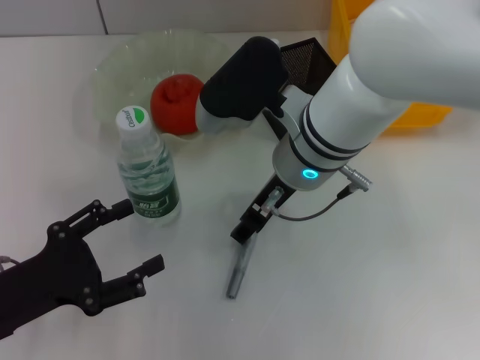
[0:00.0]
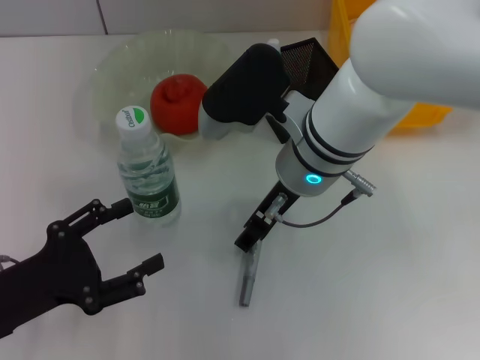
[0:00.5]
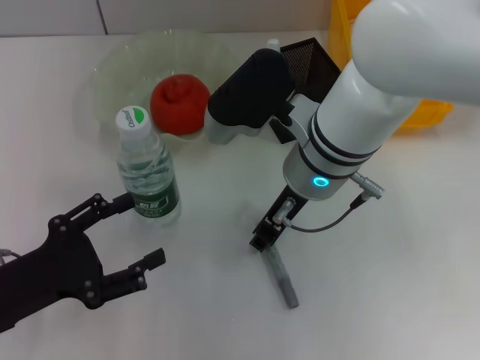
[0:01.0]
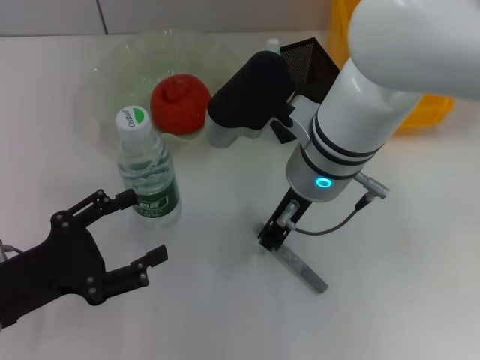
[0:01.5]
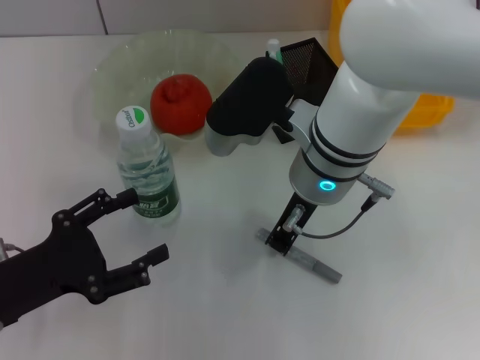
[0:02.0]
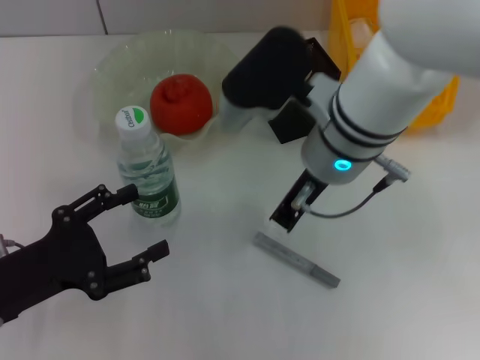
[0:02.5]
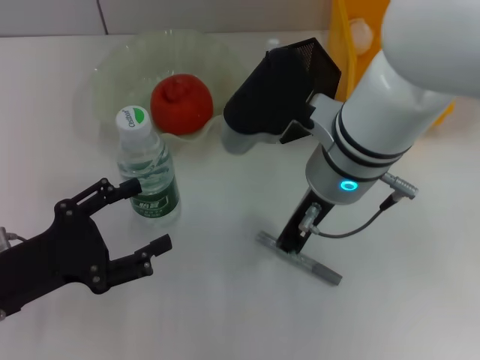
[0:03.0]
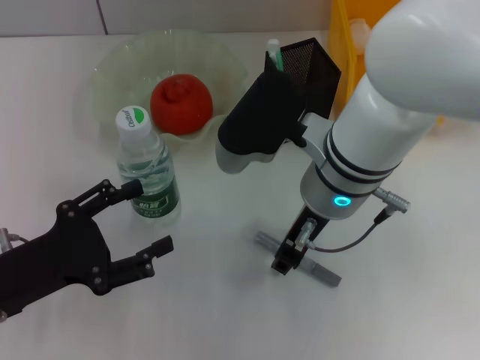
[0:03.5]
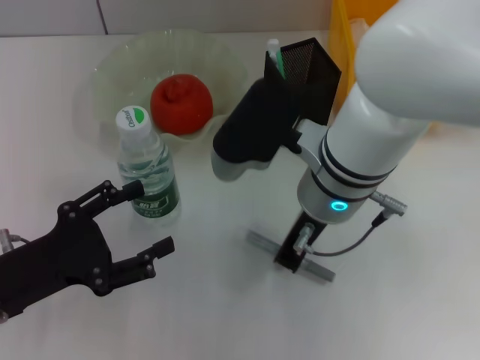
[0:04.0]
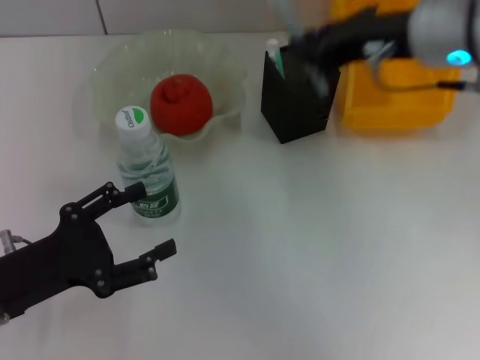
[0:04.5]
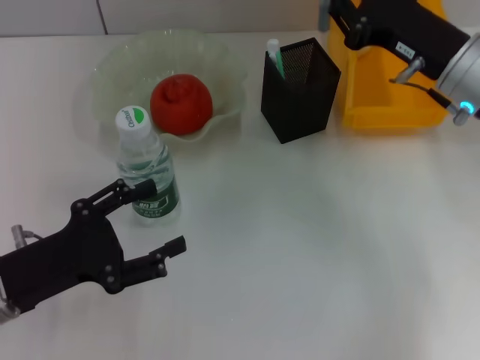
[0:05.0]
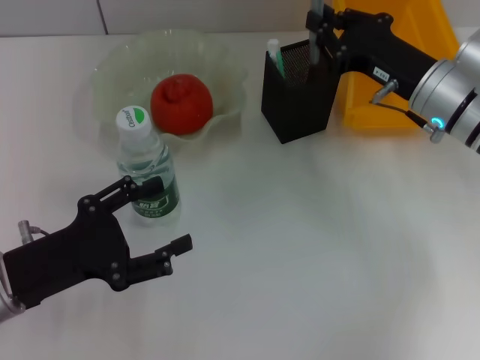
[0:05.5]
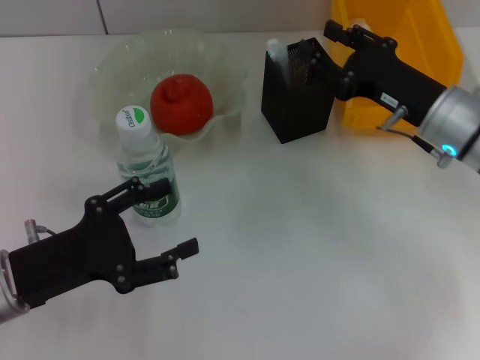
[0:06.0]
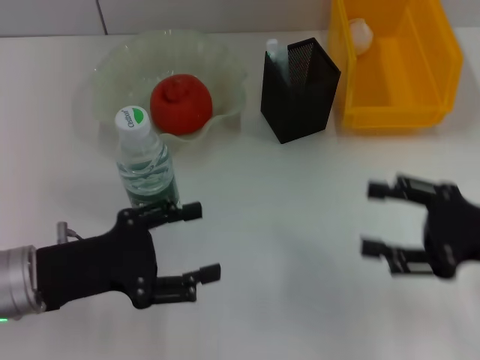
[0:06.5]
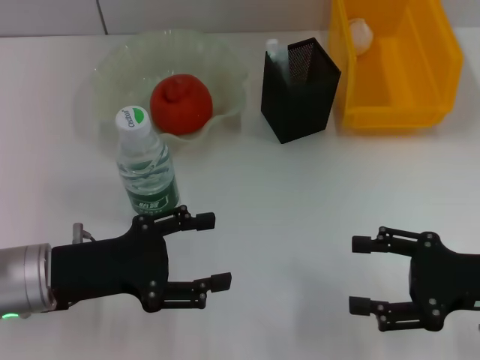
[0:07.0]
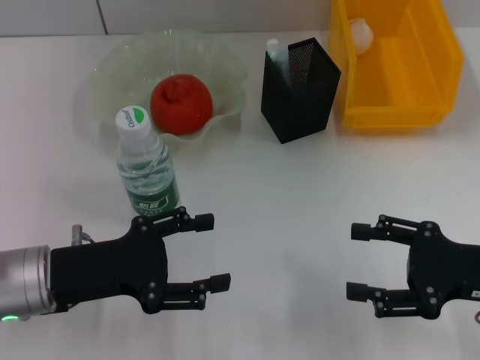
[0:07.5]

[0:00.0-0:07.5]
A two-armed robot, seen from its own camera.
Step, 0:00.0 to 0:03.5: Grab the gray glue with the right hand.
Step, 0:04.0 to 0:06.0: Place the gray glue into the pen holder with the right hand.
0:00.0 to 0:02.0: The right gripper closes.
0:02.0 to 0:04.0: The grippers make only small movements.
0:04.0 to 0:05.5: The right gripper heads to the right and forward, covering about 15 cm.
0:05.5 to 0:07.5: The right gripper goes approximately 15 cm backward and to the right, and opens.

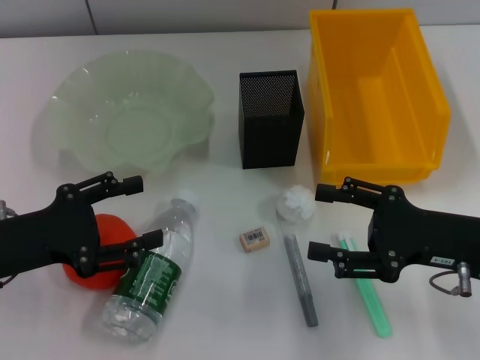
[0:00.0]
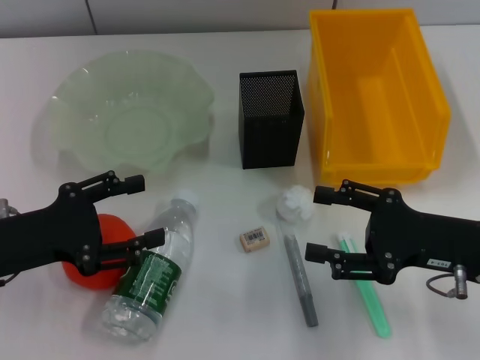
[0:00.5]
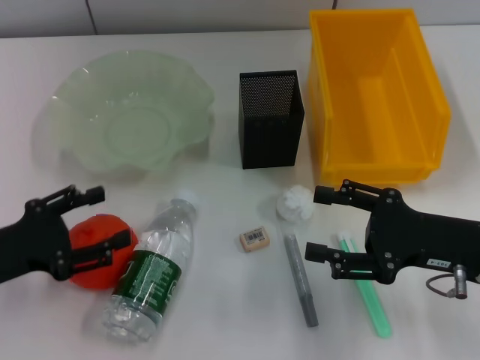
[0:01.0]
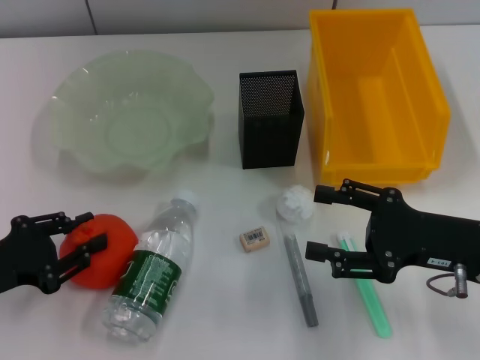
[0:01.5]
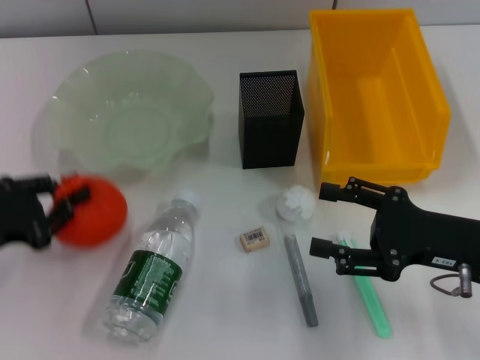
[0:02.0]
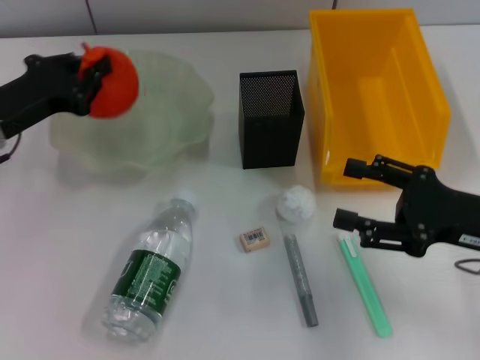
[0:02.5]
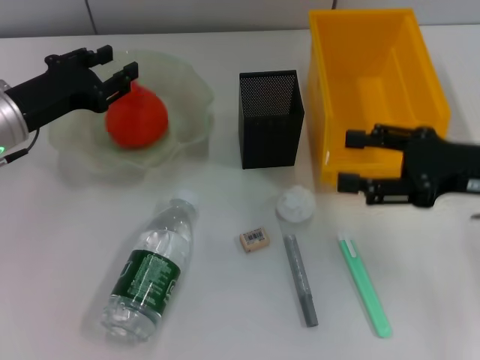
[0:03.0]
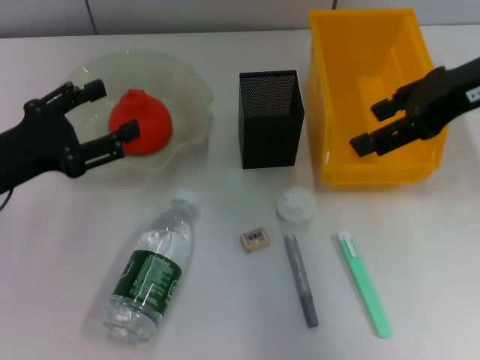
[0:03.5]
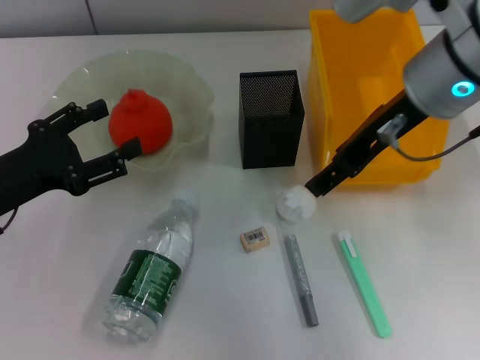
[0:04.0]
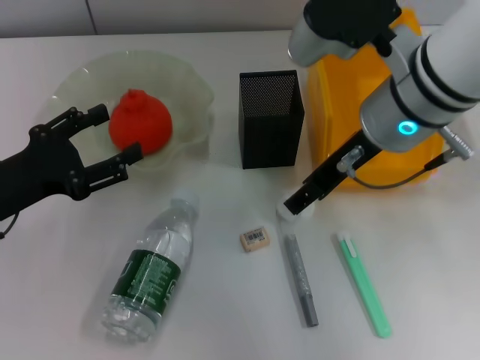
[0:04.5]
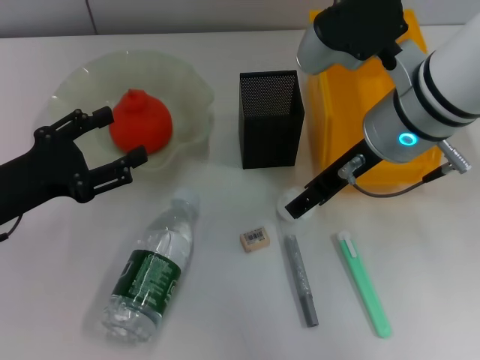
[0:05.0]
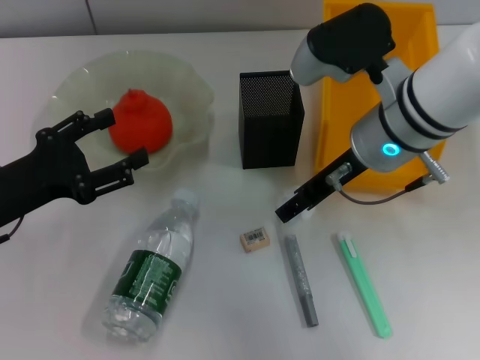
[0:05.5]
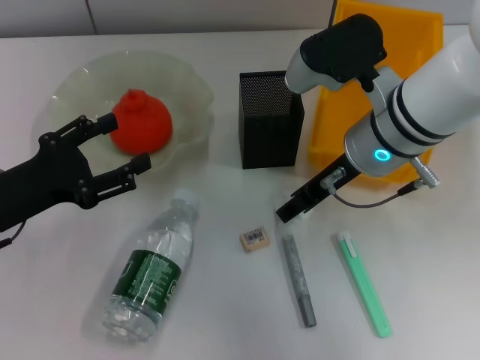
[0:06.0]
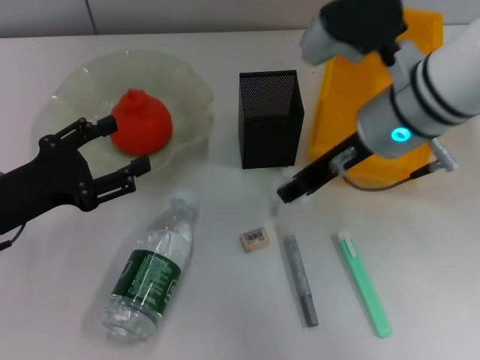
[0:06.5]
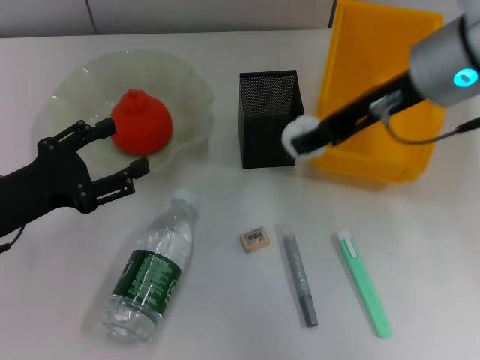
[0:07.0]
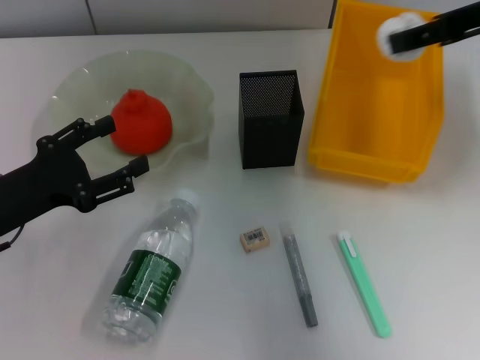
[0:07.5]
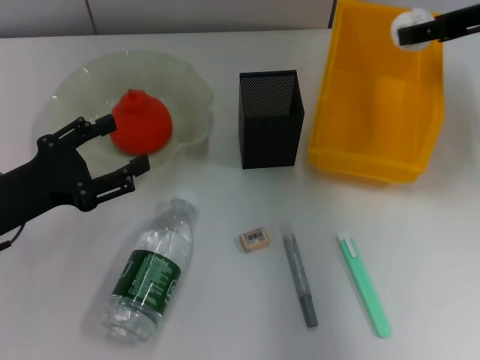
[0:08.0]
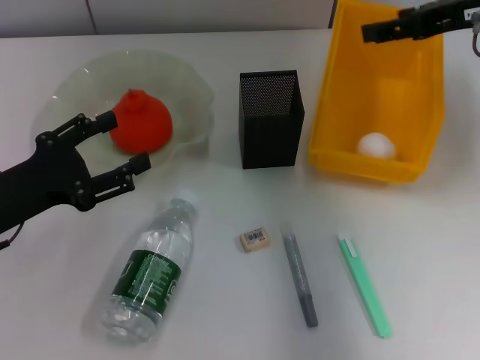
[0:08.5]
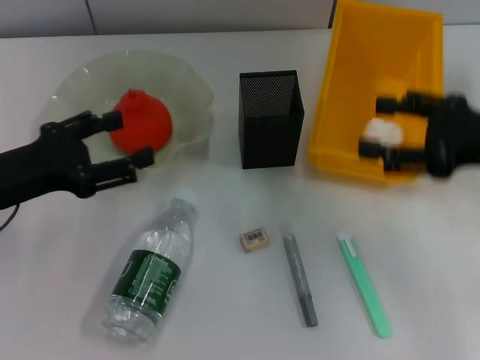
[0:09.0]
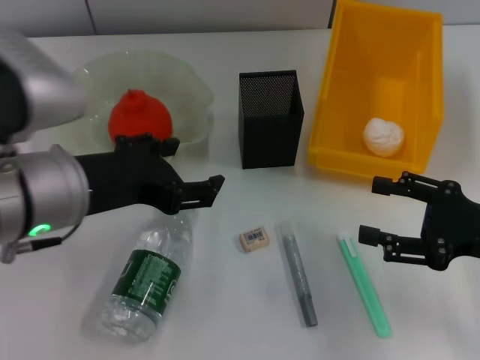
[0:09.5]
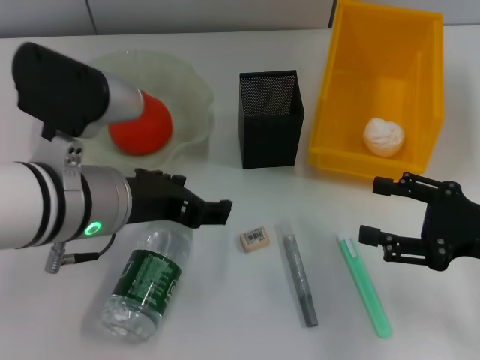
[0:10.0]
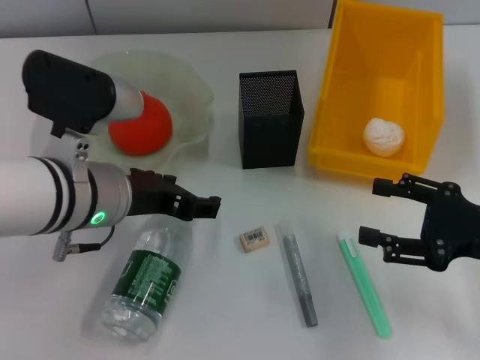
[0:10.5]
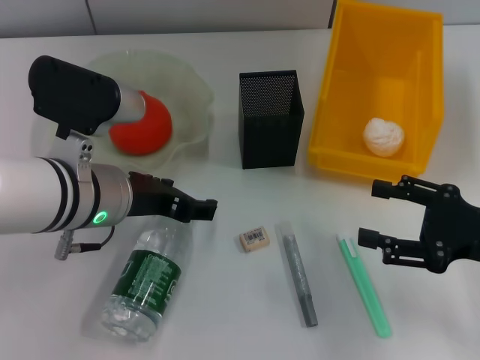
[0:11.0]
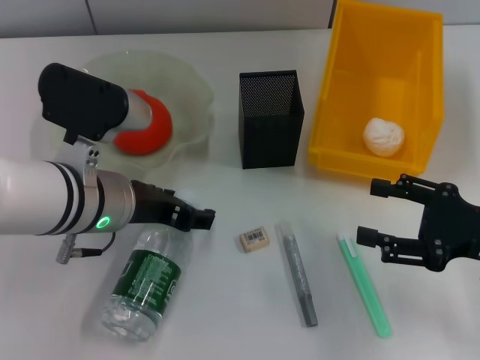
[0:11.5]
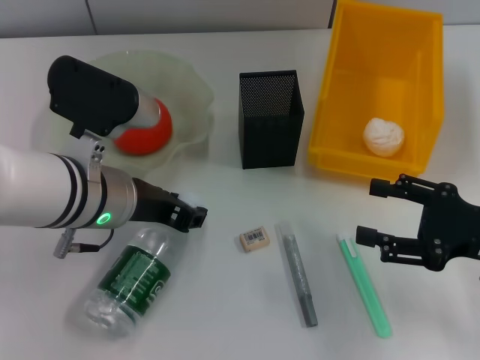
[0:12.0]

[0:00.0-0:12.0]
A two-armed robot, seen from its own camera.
Step, 0:00.0 to 0:01.5: Grab the orange with the left hand.
Step, 0:02.0 to 0:03.0: Place the orange into the fruit bowl with the left hand.
Step, 0:03.5 to 0:06.0: Grab the paper ball with the right hand.
Step, 0:06.5 to 0:08.0: Place the paper ball into the trash can with the right hand.
Step, 0:08.5 to 0:11.5: Grab the water bottle with the left hand.
0:00.0 to 0:02.0: The left gripper closes its fingers.
0:02.0 to 0:04.0: The right gripper travels upward, to the left and forward by some 20 cm. Meanwhile the left gripper moves about 15 cm forward and comes back, and opens up.
0:04.0 to 0:06.0: The right gripper moves downward, about 10 cm.
0:06.0 to 0:08.0: The right gripper is displaced to the right and upward by about 20 cm.
0:08.0 to 0:10.0: The right gripper shifts about 20 cm backward and downward, and opens up. The left gripper goes roughly 15 cm to the right and upward.
0:10.0 to 0:12.0: The left gripper closes up.

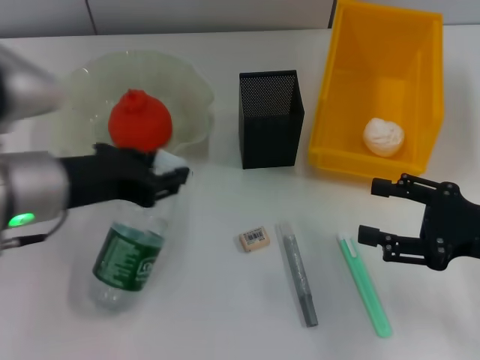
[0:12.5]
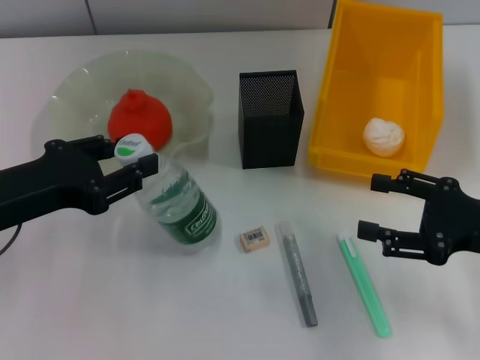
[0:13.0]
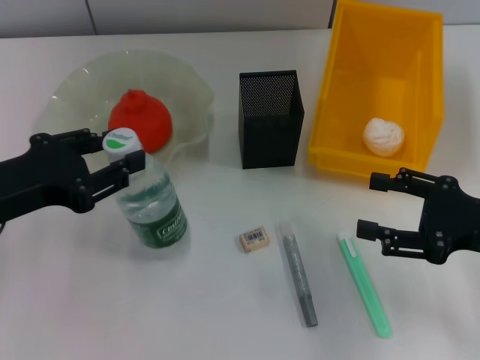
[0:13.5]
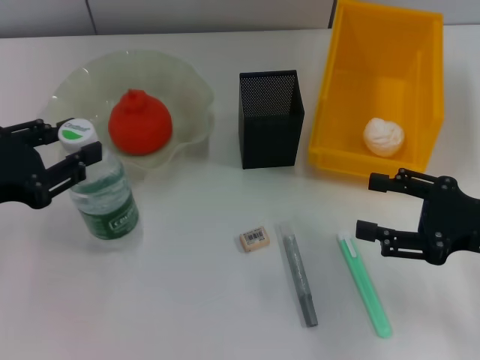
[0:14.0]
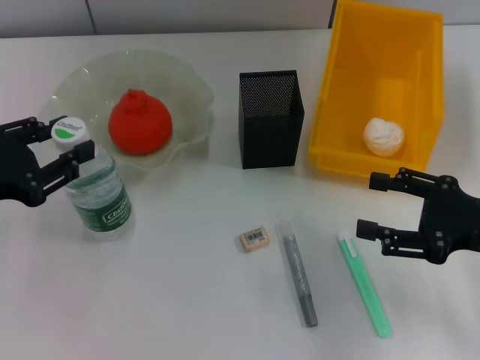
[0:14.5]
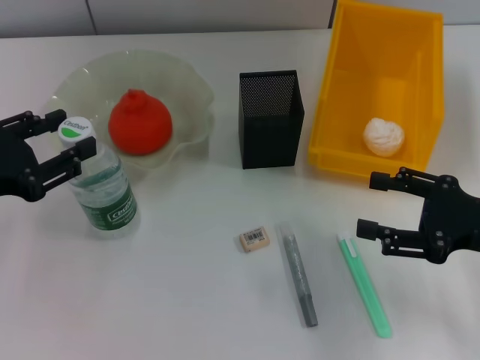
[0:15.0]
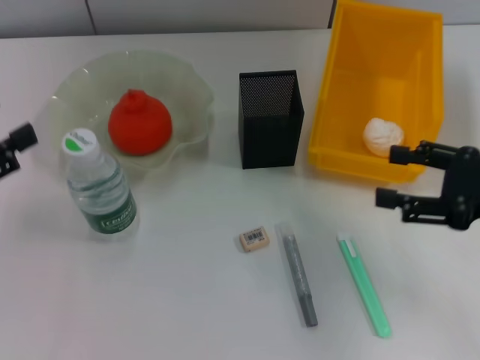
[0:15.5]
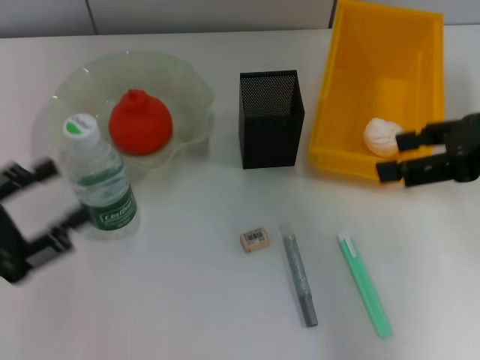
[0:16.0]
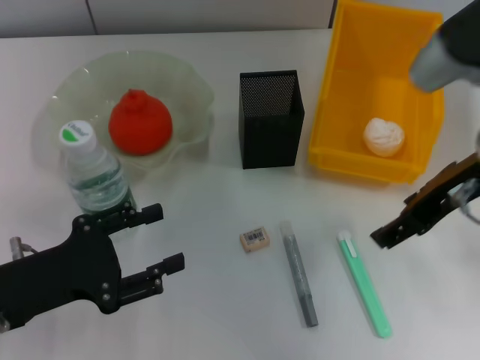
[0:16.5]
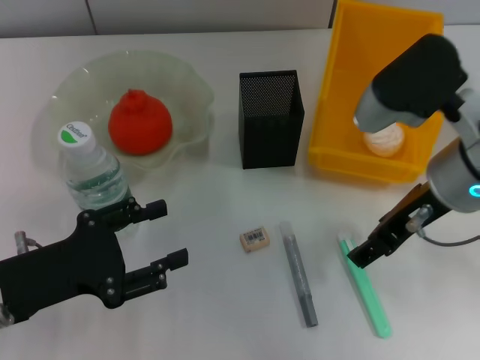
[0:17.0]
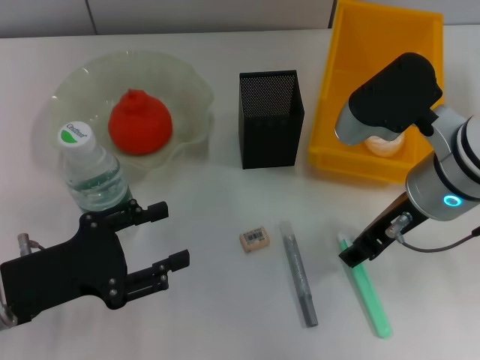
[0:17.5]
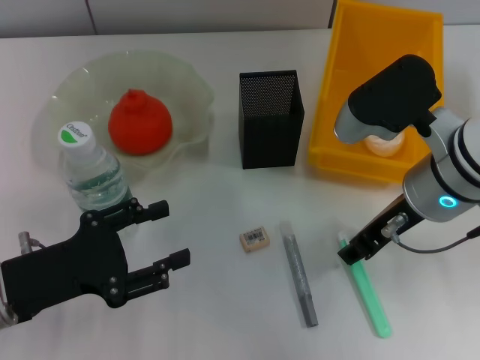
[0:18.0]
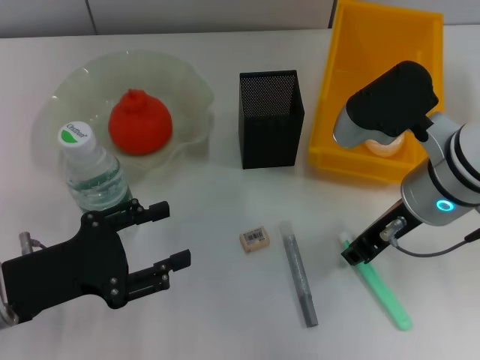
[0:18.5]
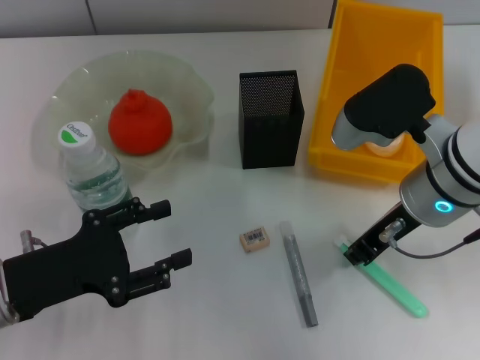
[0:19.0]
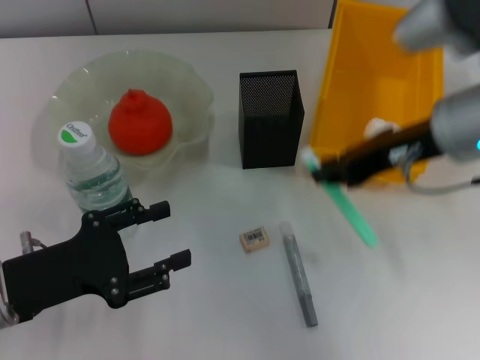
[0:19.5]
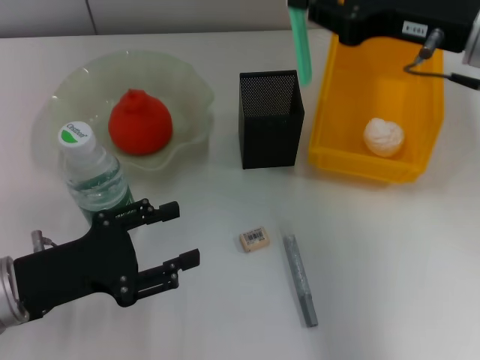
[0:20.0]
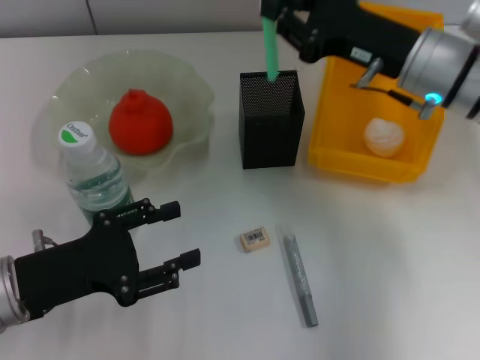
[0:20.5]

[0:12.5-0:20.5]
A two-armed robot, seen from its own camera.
Step, 0:12.5 to 0:15.0: Place the water bottle on the table with the left hand.
Step, 0:15.5 to 0:18.5: Grab the blue utility knife with the right hand.
0:12.5 to 0:14.5: The left gripper is displaced to the left by approximately 10 cm.
0:14.5 to 0:16.5: The right gripper moves upward, to the left and forward, some 15 cm; the left gripper moves downward, about 5 cm.
0:16.5 to 0:18.5: The right gripper travels downward by approximately 5 cm, and closes.
0:18.5 to 0:20.5: The right gripper heads forward, covering about 5 cm.
